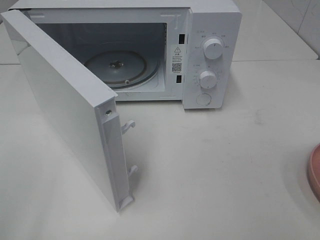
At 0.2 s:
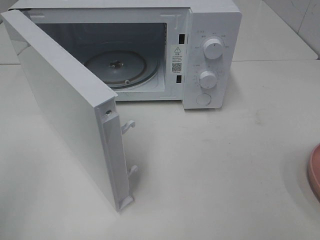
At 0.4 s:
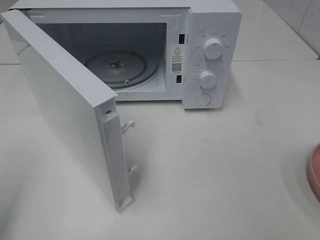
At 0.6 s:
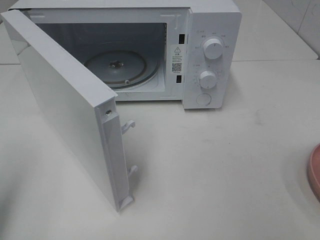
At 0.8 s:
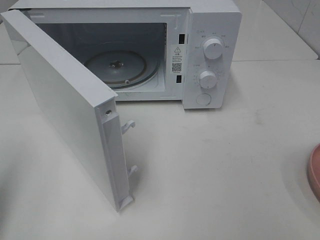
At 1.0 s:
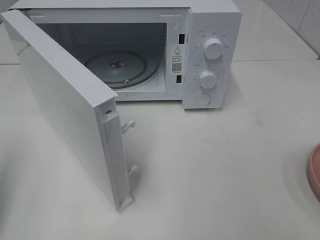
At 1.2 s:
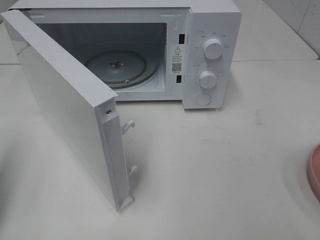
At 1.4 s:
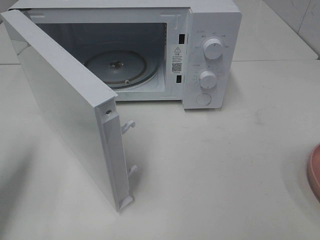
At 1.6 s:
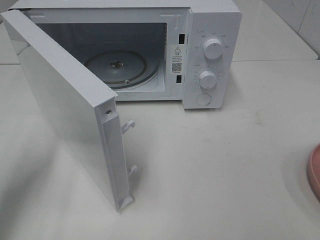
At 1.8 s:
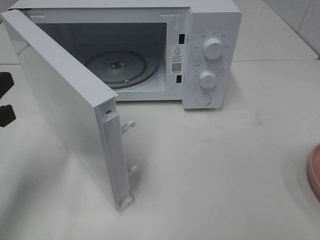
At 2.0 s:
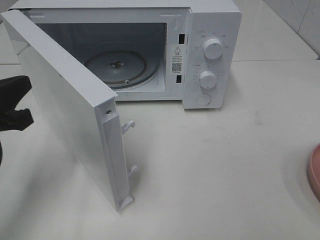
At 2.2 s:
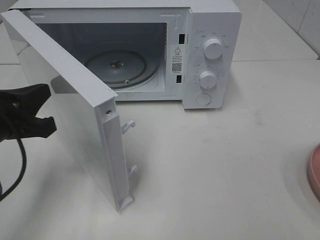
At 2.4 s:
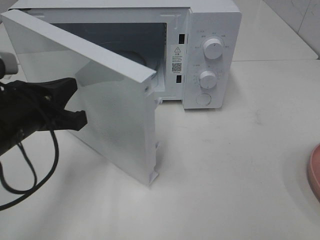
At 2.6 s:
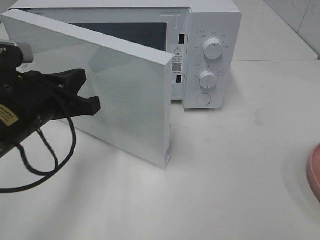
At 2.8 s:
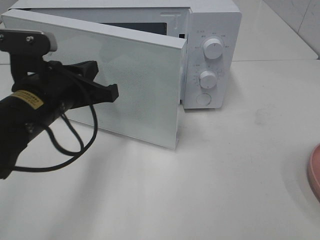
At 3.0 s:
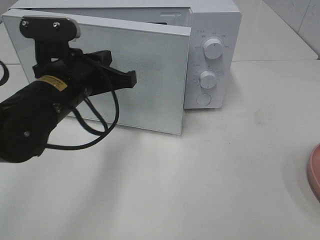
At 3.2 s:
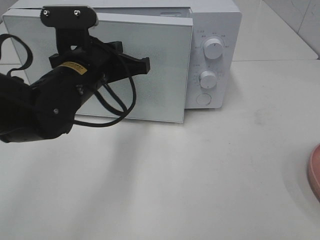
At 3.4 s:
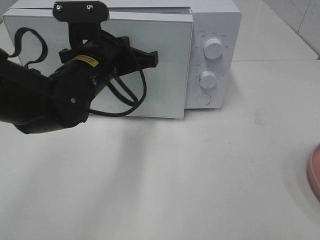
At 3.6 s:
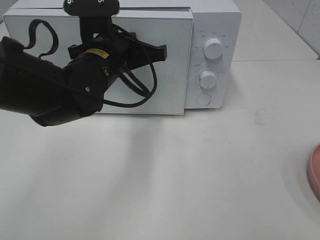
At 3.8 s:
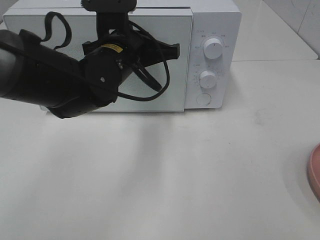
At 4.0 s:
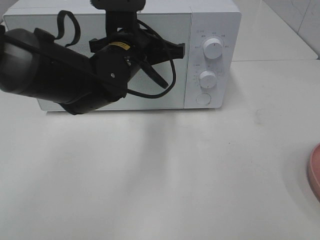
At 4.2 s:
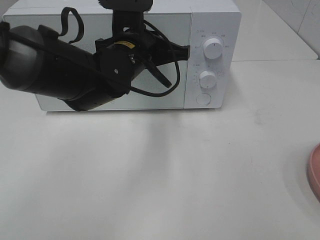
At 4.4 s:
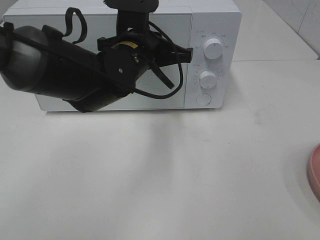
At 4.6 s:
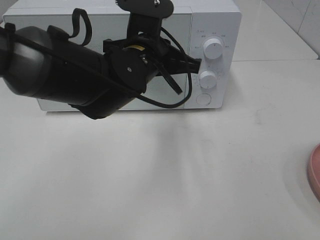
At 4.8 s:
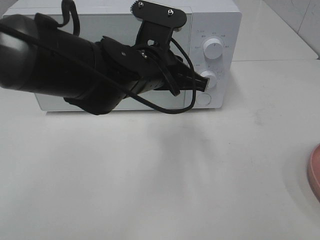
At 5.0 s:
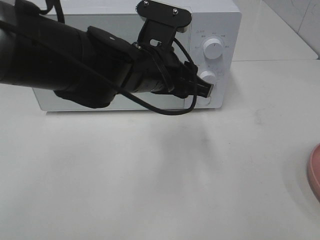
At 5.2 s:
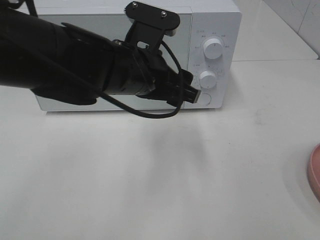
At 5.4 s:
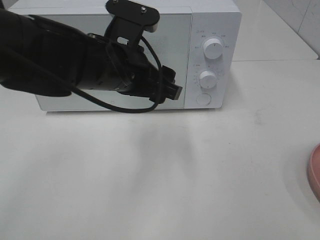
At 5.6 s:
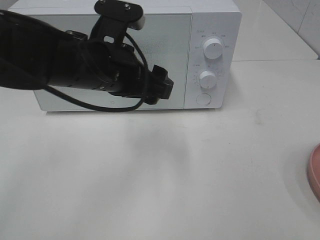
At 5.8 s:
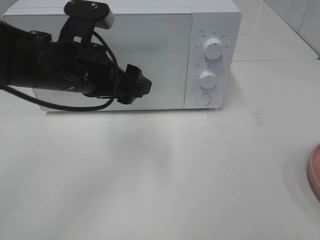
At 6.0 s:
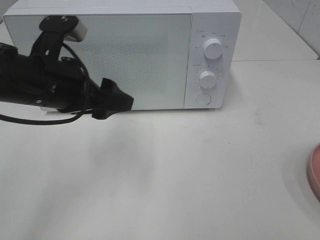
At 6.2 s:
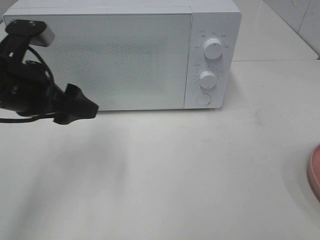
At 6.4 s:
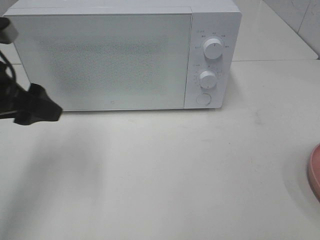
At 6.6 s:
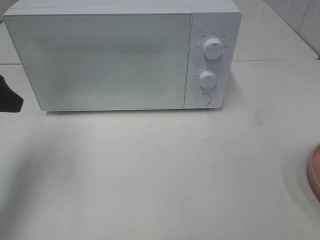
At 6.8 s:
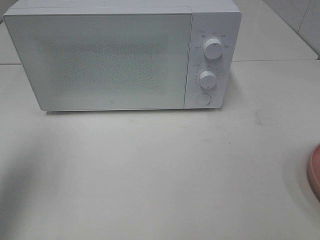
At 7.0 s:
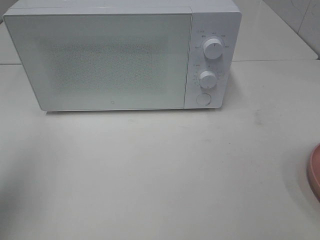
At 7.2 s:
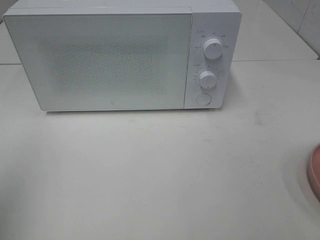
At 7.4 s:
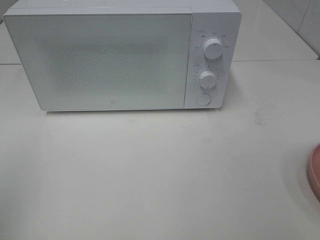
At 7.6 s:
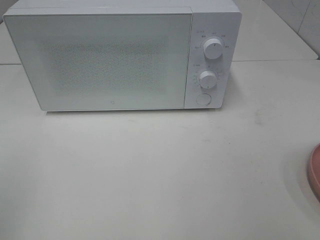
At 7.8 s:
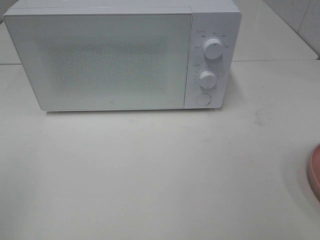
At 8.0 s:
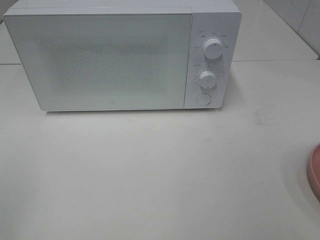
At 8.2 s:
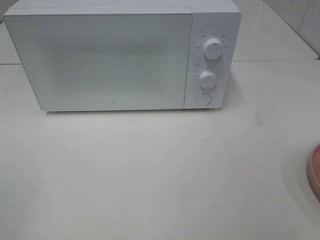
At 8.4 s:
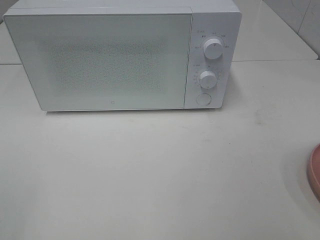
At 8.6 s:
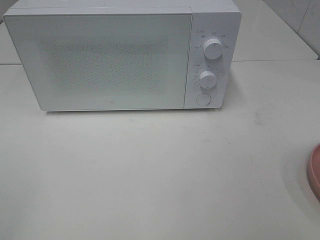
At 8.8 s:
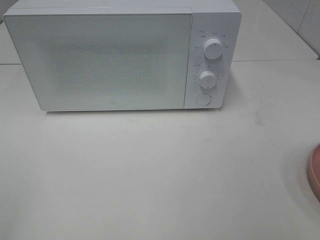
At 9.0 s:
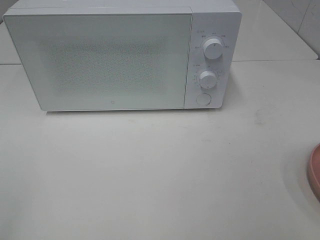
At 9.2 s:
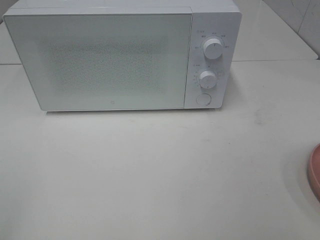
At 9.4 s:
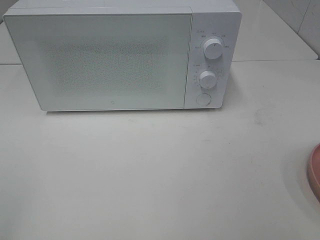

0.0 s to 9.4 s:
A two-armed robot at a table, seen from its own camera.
Task of the whole recording: Heat the burger.
Step, 0.0 to 4.6 s: Left hand: close the microwave door.
0.0 to 1.6 s: The left gripper shifts approximately 20 cm forward and downward, and closes up.
1.6 to 3.2 s: The left gripper shifts approximately 20 cm to the right and forward.
3.2 to 4.8 s: The left gripper goes about 10 cm to the right.
4.8 to 6.2 s: The left gripper travels to the left by some 20 cm, and opens up.
6.2 to 7.8 s: The left gripper moves backward and to the left, approximately 25 cm.
